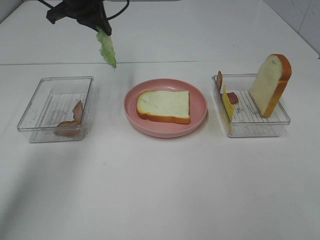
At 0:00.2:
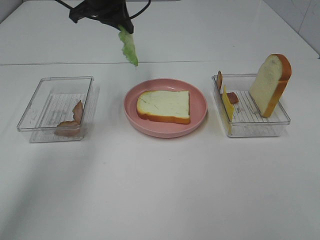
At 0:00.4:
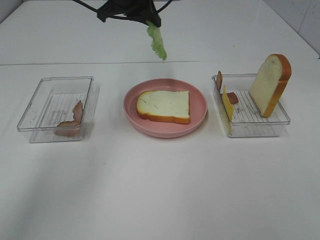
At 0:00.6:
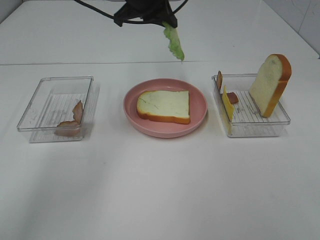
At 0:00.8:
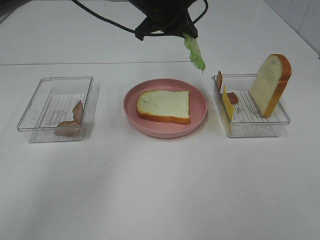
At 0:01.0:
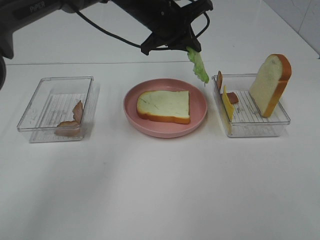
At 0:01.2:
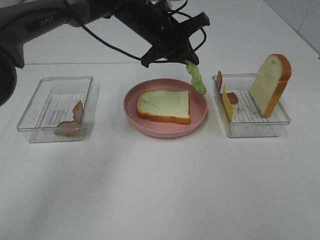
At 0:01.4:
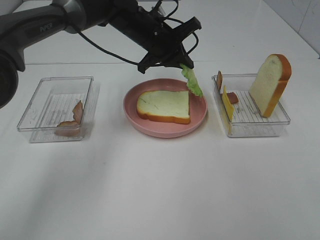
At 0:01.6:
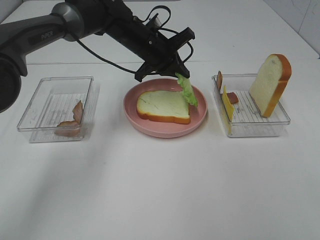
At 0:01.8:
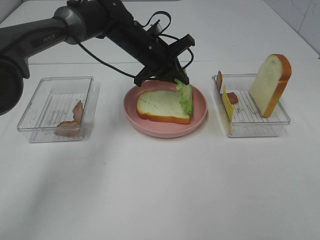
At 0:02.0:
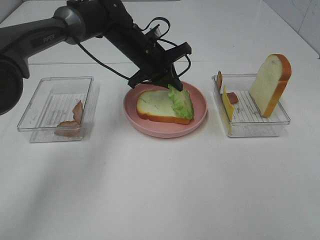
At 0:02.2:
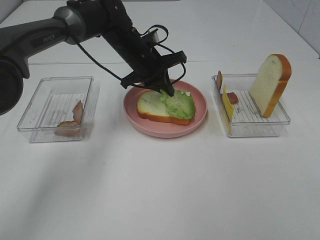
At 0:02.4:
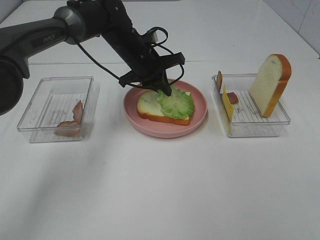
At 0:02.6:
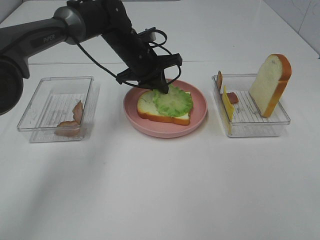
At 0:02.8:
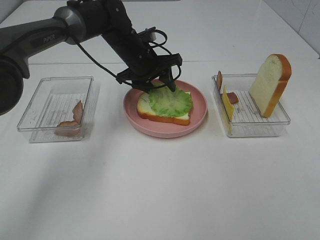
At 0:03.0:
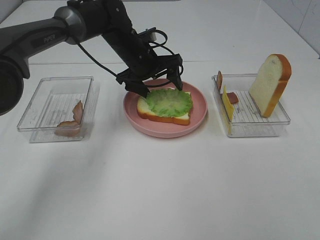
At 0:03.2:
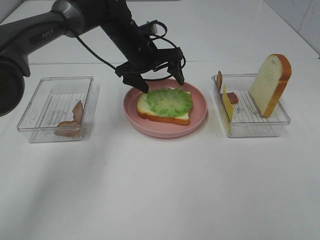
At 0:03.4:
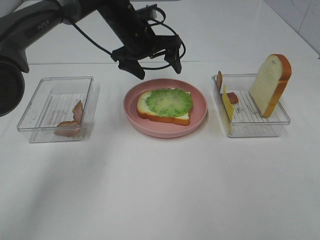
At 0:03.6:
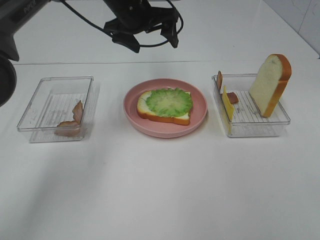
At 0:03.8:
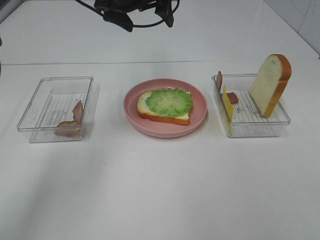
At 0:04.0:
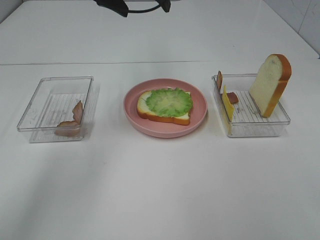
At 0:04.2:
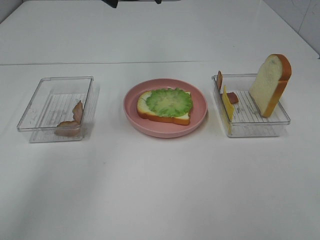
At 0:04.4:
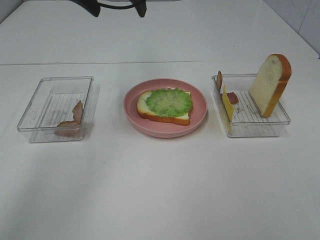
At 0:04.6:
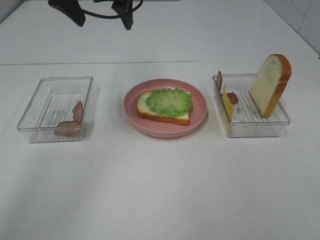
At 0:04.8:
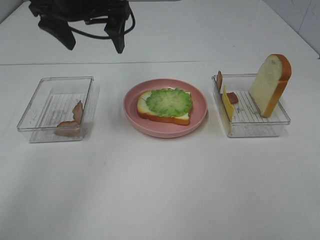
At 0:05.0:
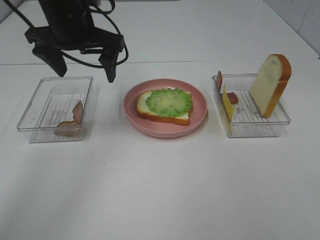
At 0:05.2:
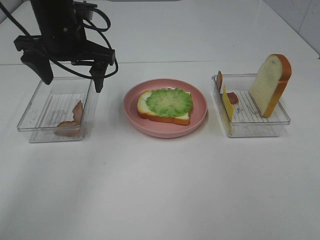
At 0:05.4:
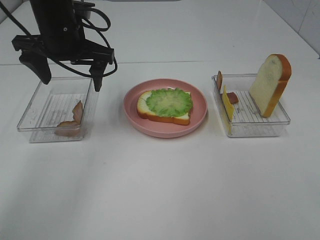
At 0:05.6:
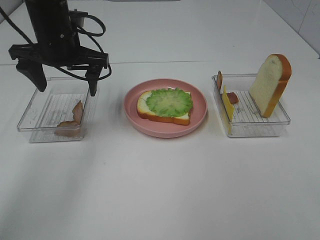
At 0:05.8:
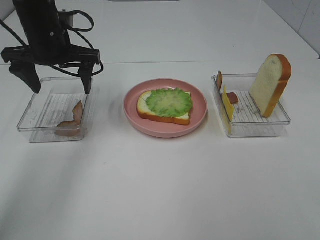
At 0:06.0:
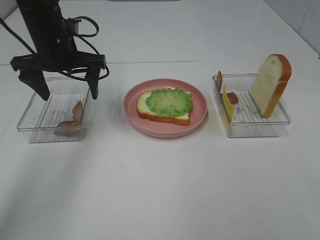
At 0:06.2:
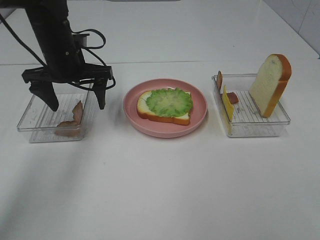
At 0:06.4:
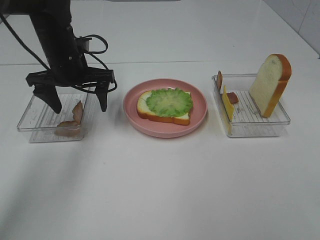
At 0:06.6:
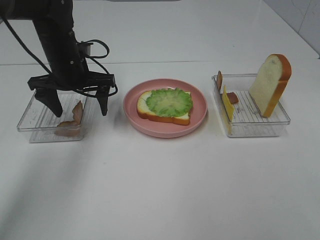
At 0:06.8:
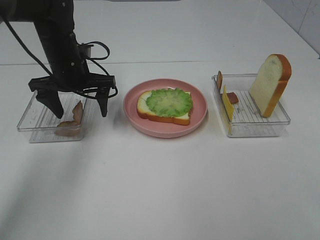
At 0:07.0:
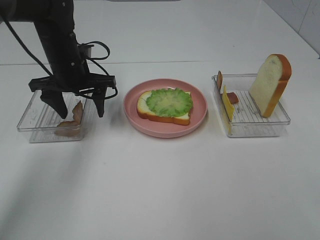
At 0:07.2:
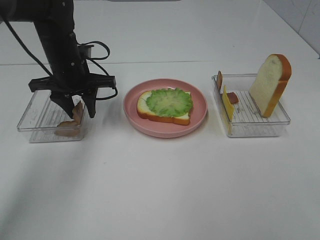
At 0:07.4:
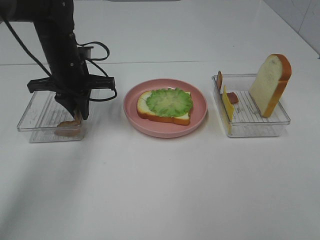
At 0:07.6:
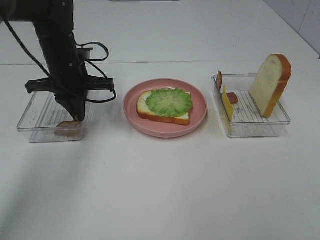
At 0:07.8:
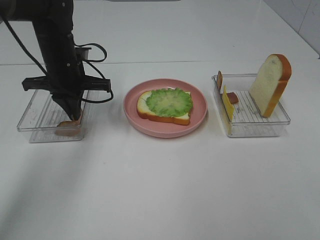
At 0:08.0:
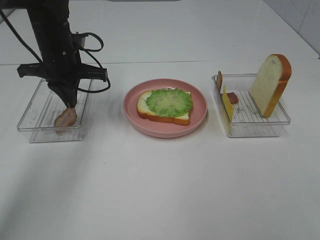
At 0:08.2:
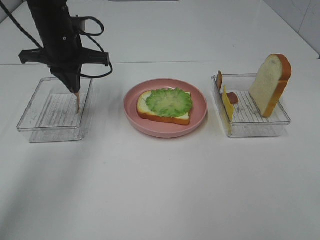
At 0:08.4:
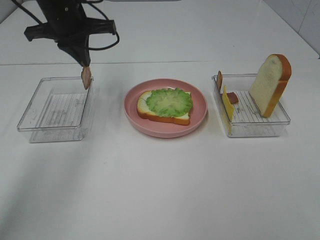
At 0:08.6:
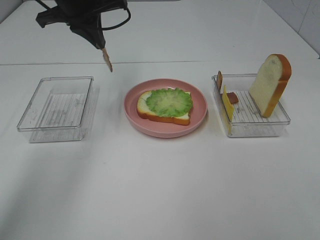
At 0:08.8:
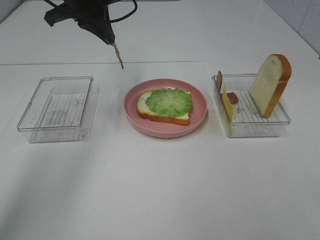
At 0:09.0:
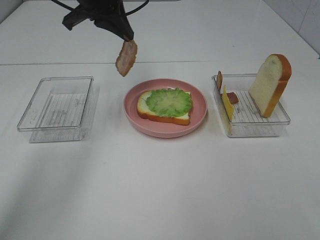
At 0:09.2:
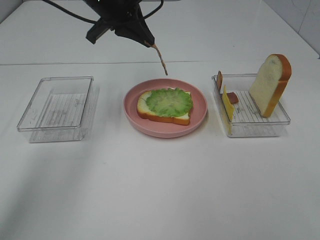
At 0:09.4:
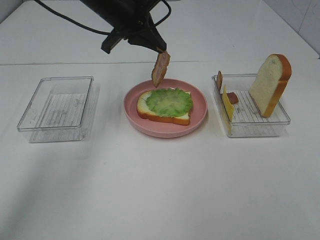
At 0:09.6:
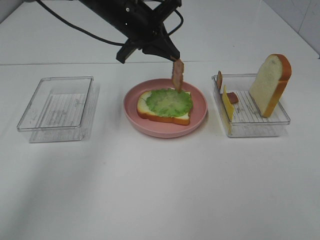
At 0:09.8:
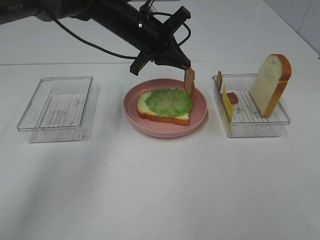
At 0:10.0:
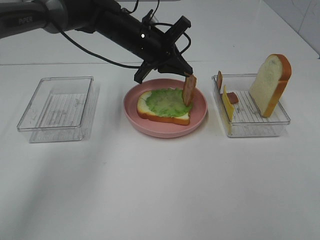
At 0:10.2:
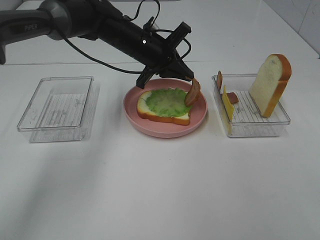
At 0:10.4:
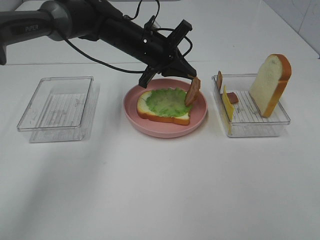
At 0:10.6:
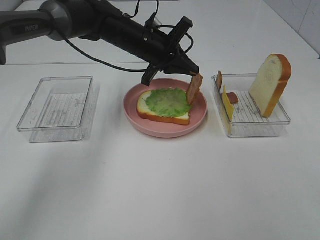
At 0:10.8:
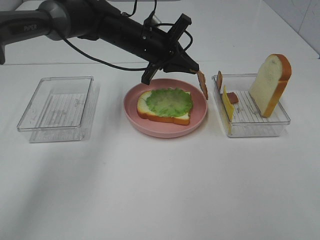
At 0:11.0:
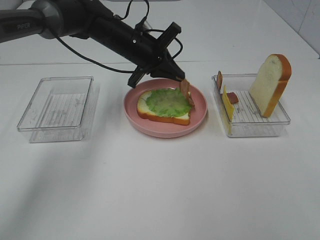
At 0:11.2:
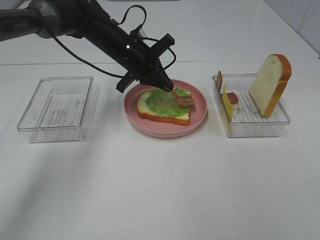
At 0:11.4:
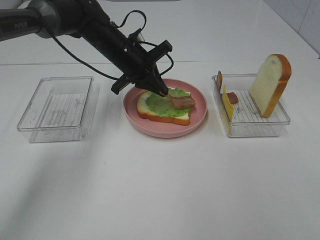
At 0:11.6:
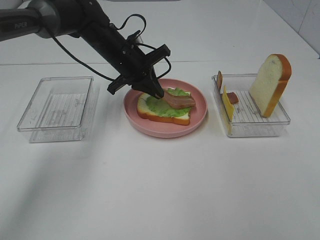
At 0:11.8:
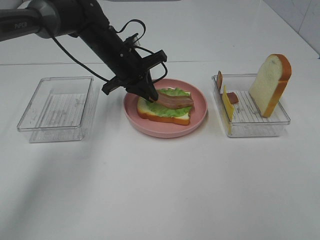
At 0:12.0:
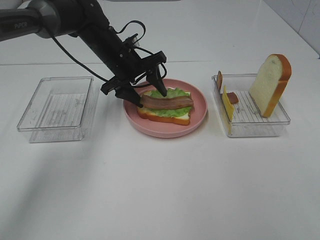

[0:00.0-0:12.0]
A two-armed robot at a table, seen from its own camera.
Task of the whole recording: Make sandwiches.
Step, 0:00.0 to 0:03.4: Left hand:place the lettuce slice on the bread slice.
Step, 0:03.6 to 0:07.8: Left hand:grab the bacon.
0:00.0 to 0:01.6: The left gripper shifts roughly 15 cm downward and to the right.
0:01.6 to 0:03.0: The left gripper opens.
0:03.0 to 0:04.4: The left gripper goes about 20 cm upward.
0:04.4 to 0:06.0: The left gripper travels downward and to the left by approximately 15 cm.
0:06.0 to 0:07.6: The left gripper closes its fingers.
0:07.6 to 0:09.0: The left gripper goes approximately 15 cm upward.
0:09.0 to 0:10.4: The left gripper is displaced downward and to the right by about 15 cm.
0:10.4 to 0:12.0: The left gripper ends up some 5 cm from where it was, and opens up.

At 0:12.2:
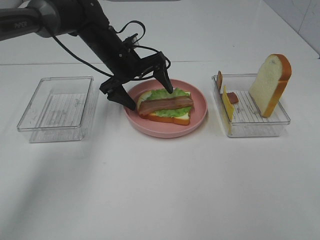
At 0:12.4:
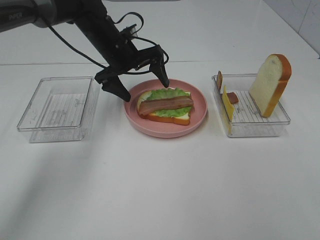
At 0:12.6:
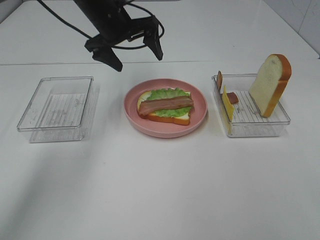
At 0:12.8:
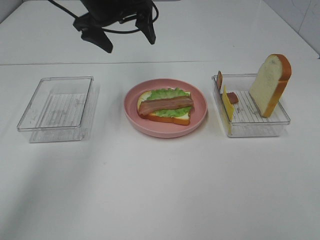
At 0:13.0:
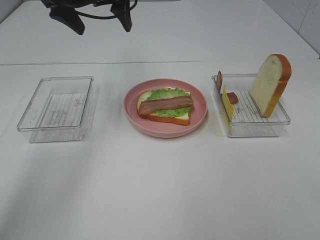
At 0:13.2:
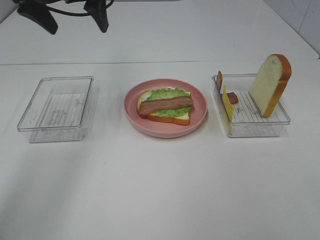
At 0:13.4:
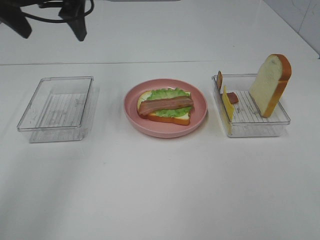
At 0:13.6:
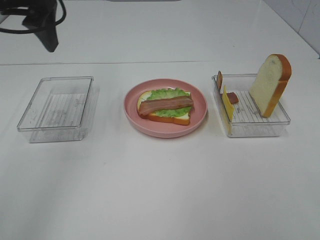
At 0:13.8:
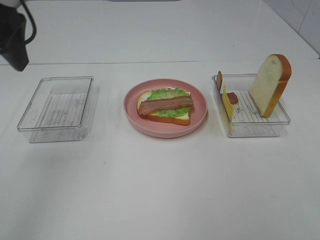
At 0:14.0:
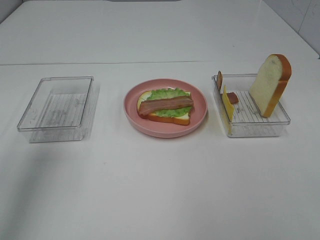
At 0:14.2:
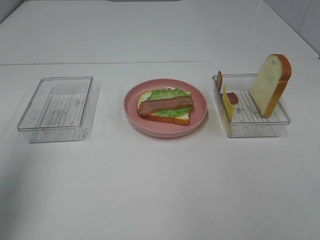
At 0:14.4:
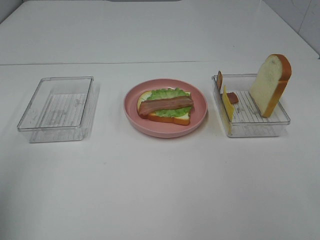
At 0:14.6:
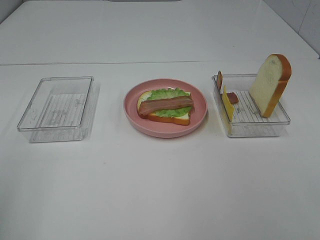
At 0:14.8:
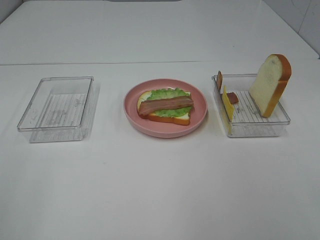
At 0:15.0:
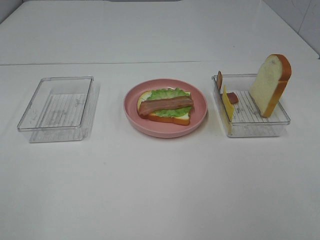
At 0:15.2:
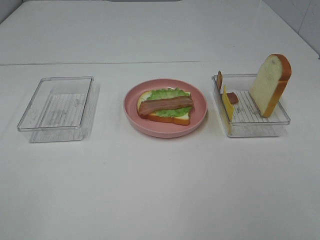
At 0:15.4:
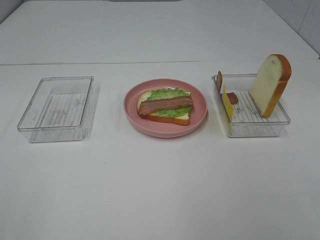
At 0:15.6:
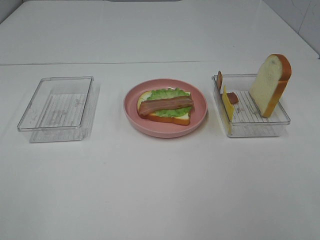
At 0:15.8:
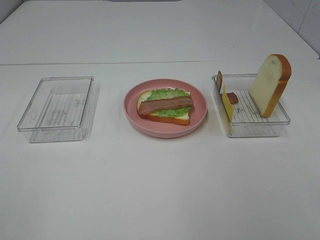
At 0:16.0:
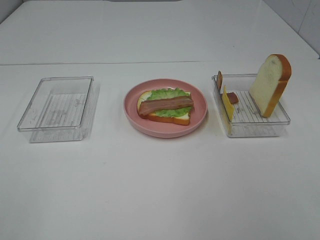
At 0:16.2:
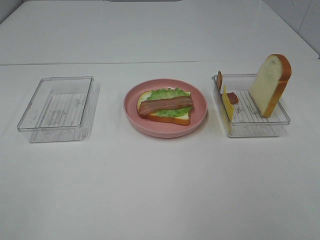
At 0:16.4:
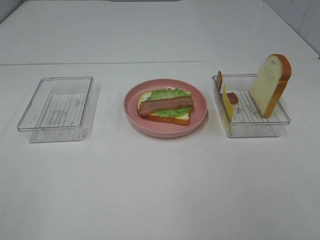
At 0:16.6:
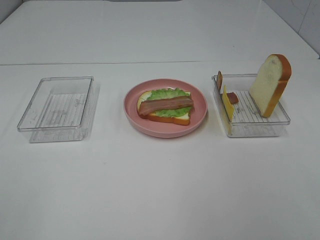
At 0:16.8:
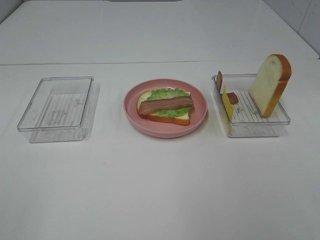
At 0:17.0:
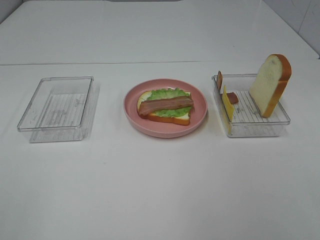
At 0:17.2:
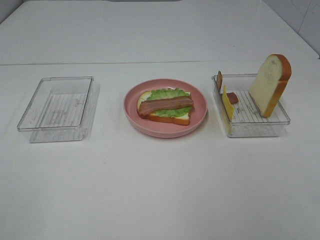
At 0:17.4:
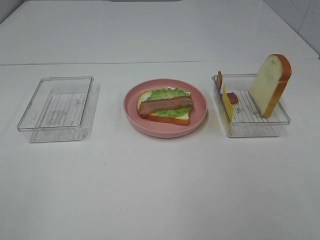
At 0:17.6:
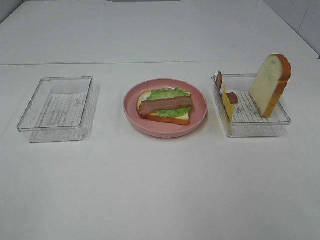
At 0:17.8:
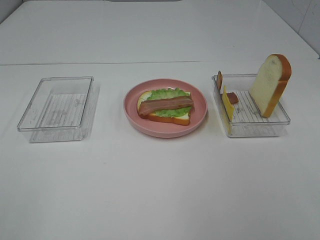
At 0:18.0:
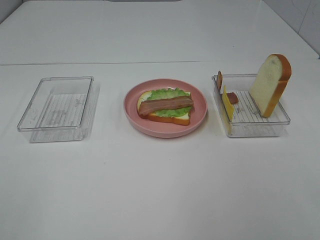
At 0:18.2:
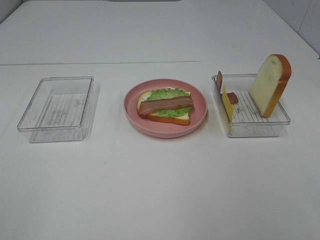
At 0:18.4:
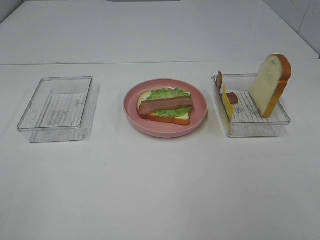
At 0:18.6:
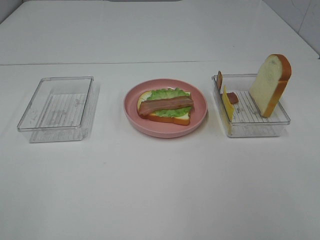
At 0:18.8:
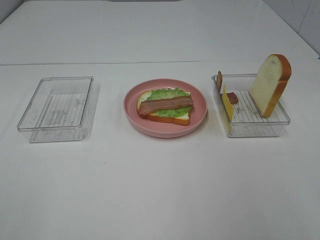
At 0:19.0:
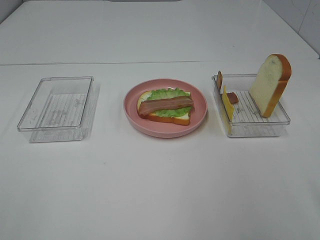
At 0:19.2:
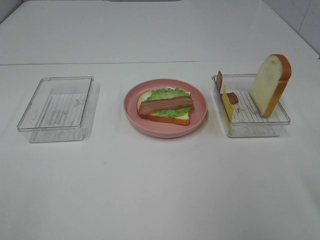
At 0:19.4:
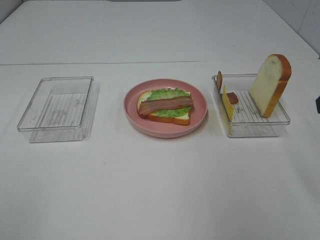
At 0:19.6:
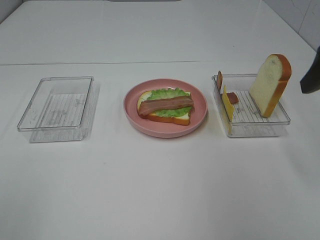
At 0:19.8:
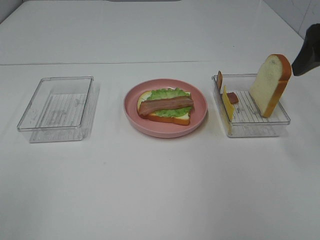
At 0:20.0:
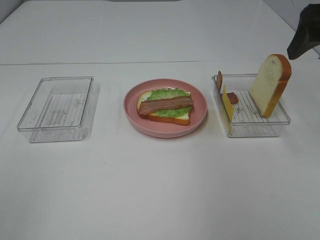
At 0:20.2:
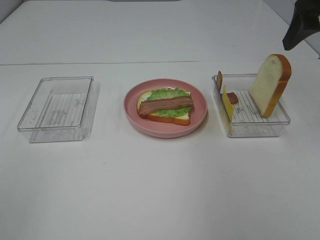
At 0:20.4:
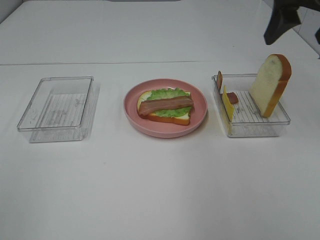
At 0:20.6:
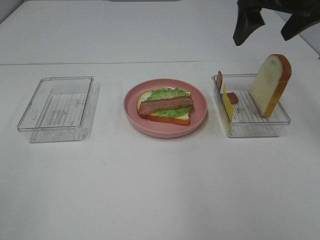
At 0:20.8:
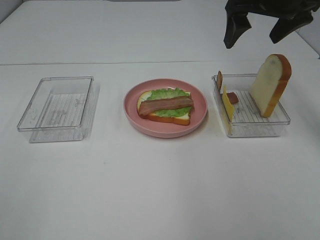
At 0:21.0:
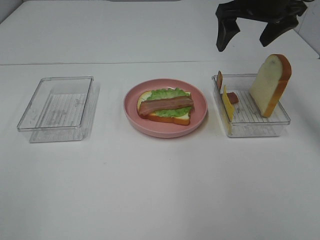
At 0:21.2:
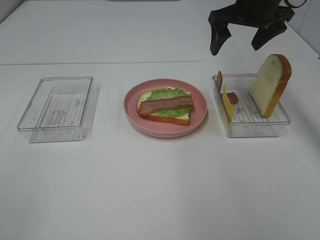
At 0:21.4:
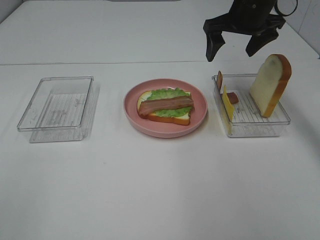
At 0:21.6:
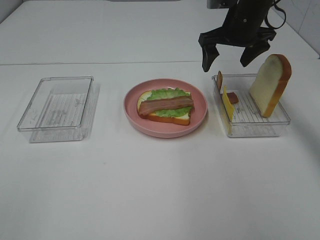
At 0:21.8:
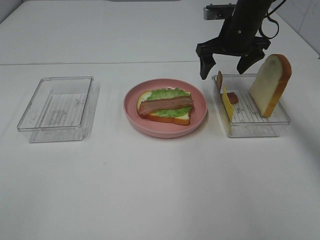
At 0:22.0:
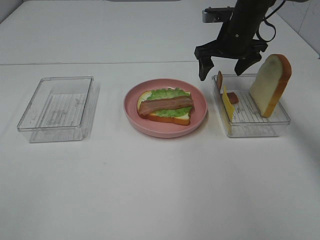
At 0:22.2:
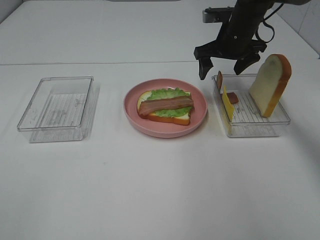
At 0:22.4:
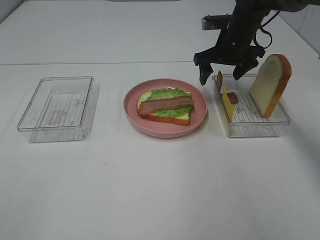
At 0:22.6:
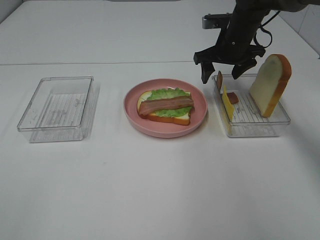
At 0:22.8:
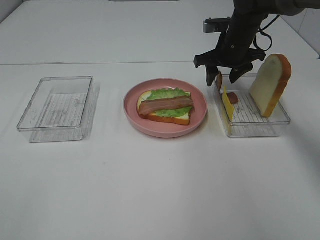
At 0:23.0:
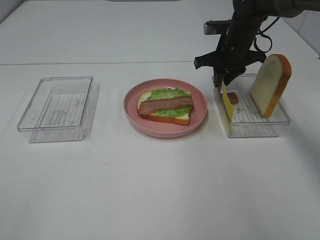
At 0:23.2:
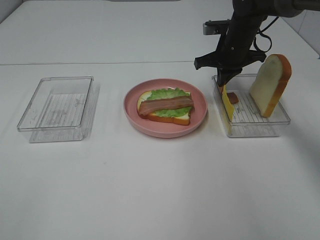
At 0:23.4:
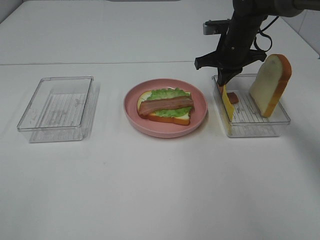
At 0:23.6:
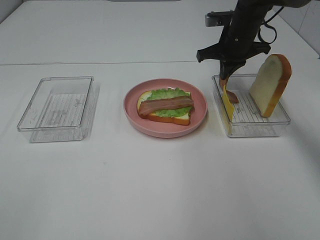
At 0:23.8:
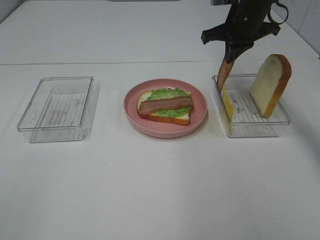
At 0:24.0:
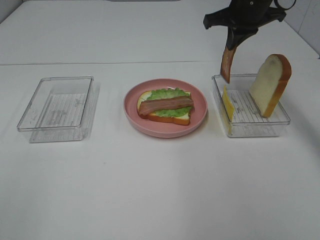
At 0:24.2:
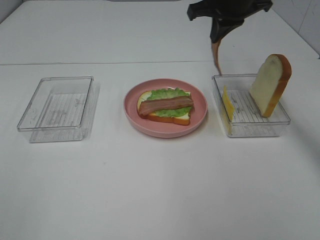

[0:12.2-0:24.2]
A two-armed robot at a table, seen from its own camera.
Task of the whole recording: Make sandwiches.
Step, 0:12.2 to 0:23.6: Right hand:grab the bacon.
0:12.2 to 0:13.8: The left gripper shifts about 30 cm upward, backward and to the left.
0:13.8 to 0:15.2: The left gripper shifts about 30 cm backward.
0:16.6 to 0:18.2: Neither gripper changes place.
0:18.2 to 0:19.8: The right gripper goes some 25 cm forward.
0:19.8 to 0:21.2: The right gripper is displaced forward and to the left by some 20 cm.
0:21.2 to 0:22.6: The right gripper is displaced downward by about 10 cm.
0:22.6 to 0:24.2: The right gripper moves upward, about 10 cm, and closes its fingers.
